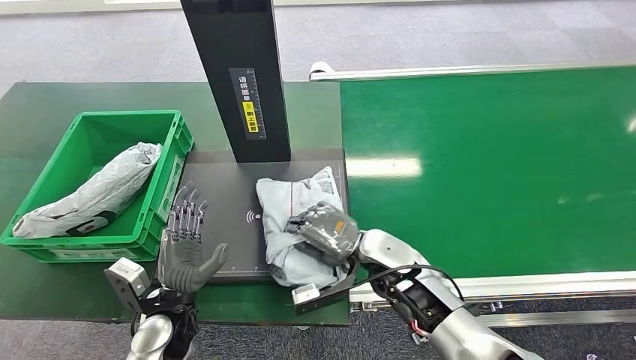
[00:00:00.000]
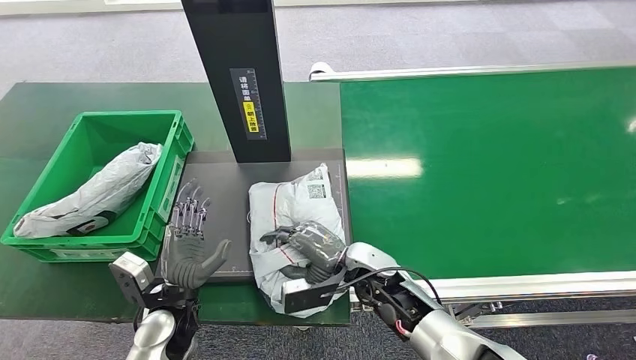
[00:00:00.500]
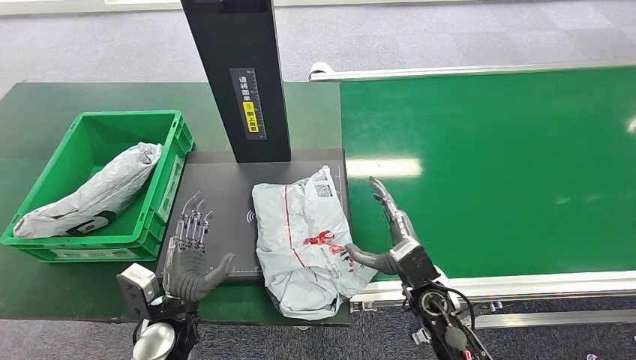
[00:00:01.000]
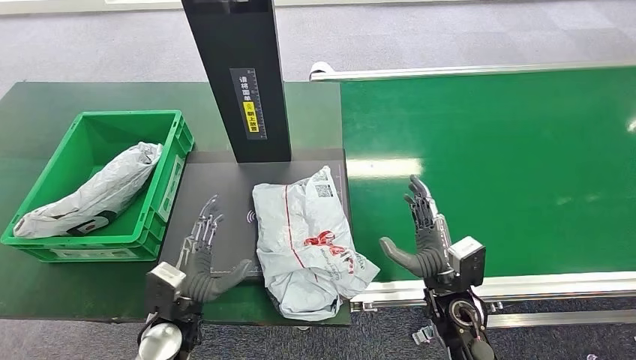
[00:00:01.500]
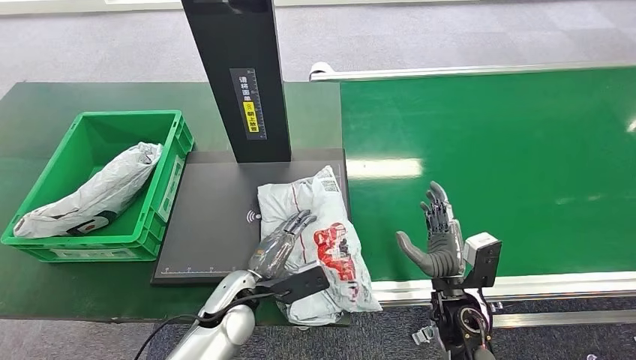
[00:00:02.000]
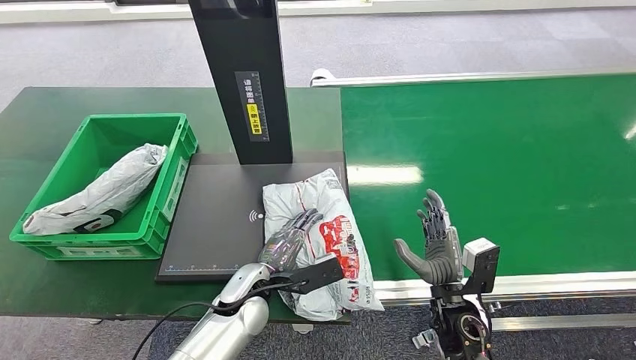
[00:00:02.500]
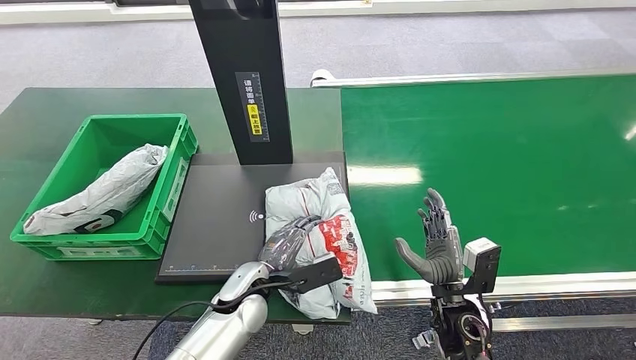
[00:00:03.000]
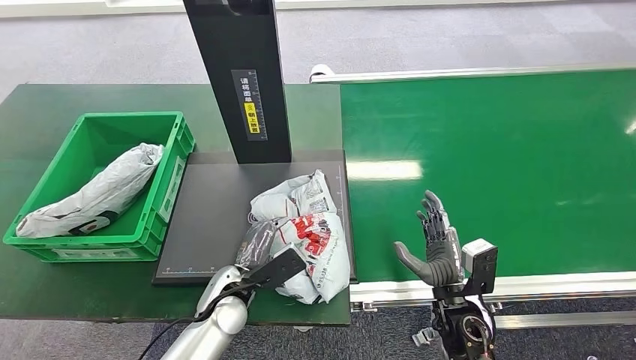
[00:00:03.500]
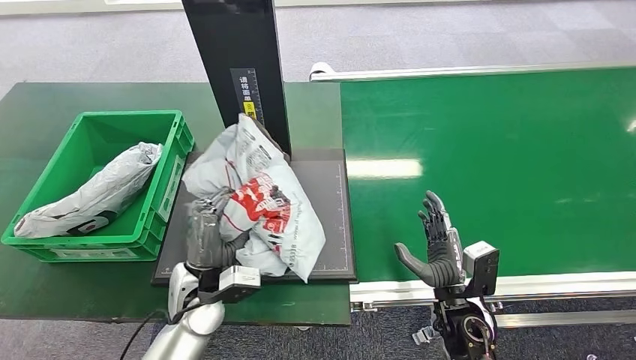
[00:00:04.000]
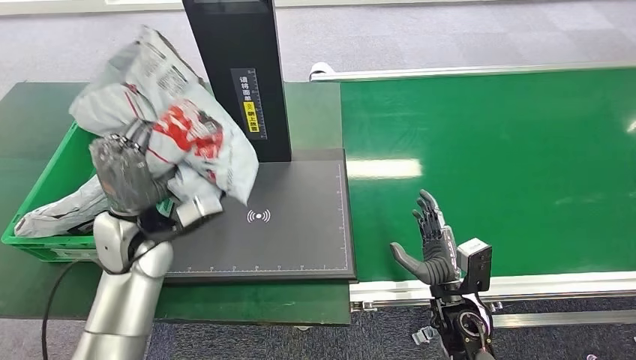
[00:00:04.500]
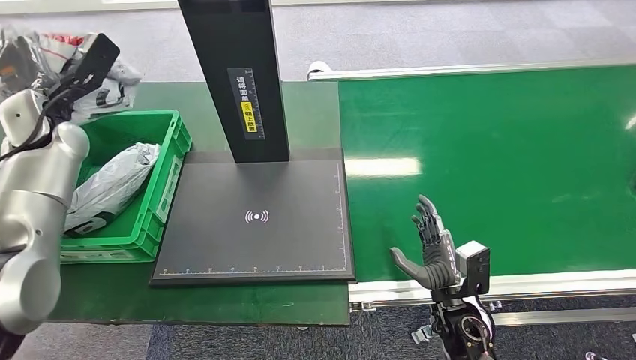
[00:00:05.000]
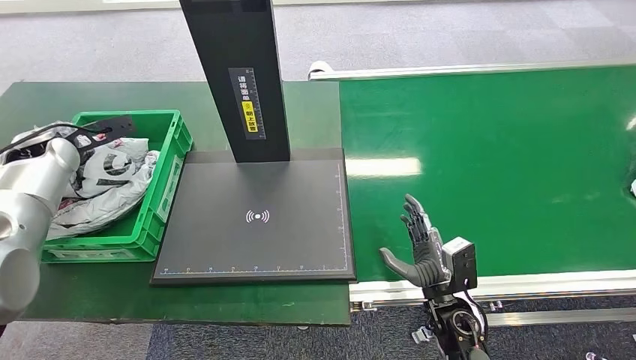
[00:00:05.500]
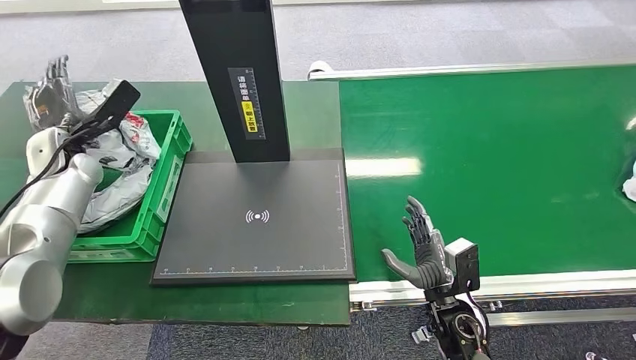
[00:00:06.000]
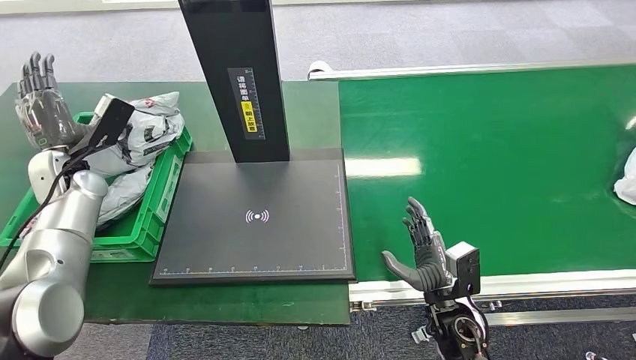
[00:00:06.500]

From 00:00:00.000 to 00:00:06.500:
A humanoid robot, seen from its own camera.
Step, from 00:00:00.000 to 00:00:02.000: Place the package onto the inbound machine.
Step, from 00:00:02.500 to 00:00:04.000: Pick up the package from the inbound machine.
Step, from 00:00:04.500 to 00:00:06.500: Place the package into the parcel locker.
From 00:00:00.000 to 00:00:02.000: The right hand moves to the right, backward and downward, approximately 15 cm; the left hand moves to the right, roughly 10 cm.
